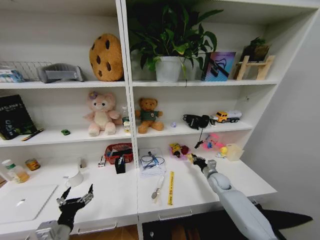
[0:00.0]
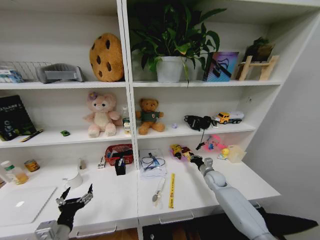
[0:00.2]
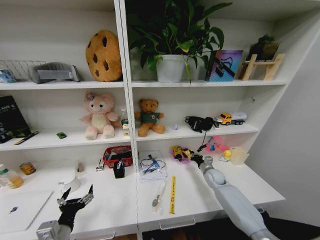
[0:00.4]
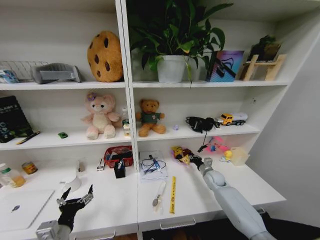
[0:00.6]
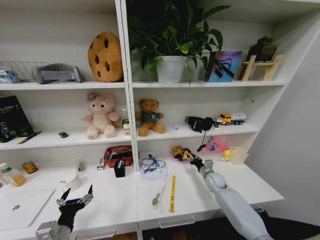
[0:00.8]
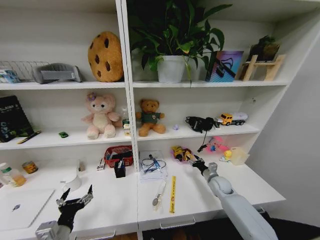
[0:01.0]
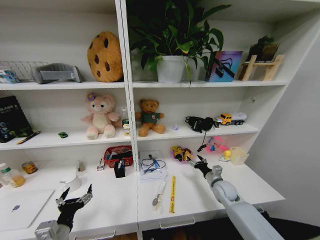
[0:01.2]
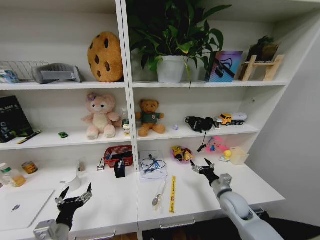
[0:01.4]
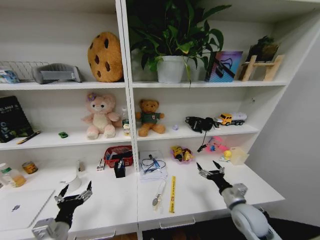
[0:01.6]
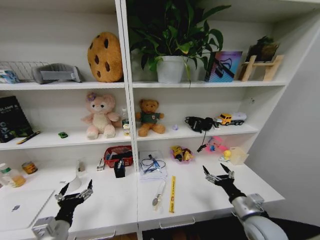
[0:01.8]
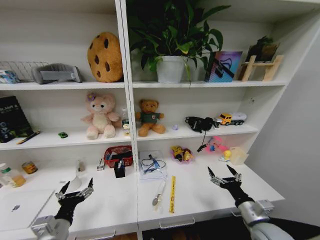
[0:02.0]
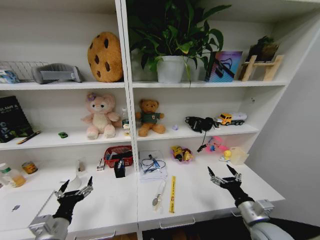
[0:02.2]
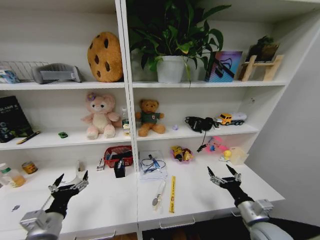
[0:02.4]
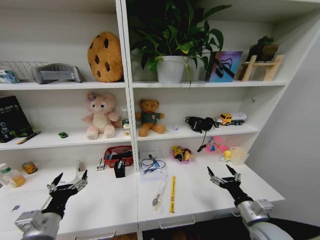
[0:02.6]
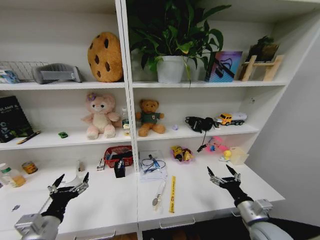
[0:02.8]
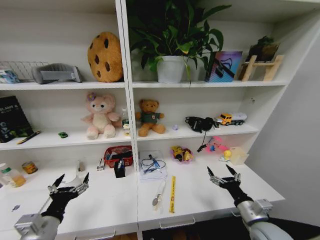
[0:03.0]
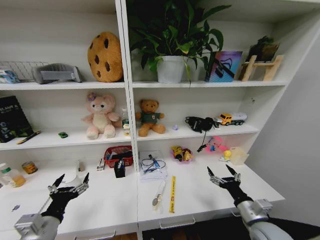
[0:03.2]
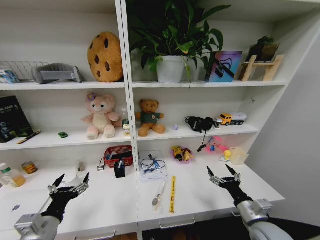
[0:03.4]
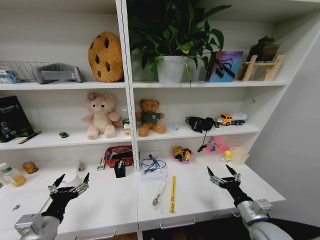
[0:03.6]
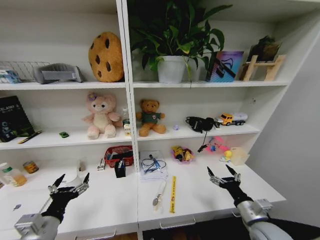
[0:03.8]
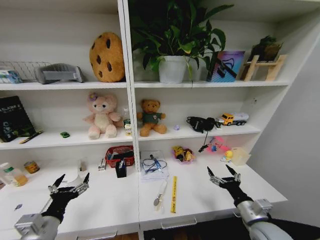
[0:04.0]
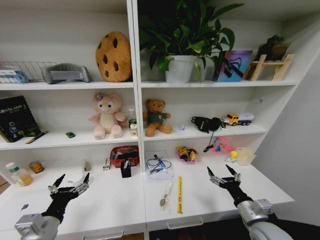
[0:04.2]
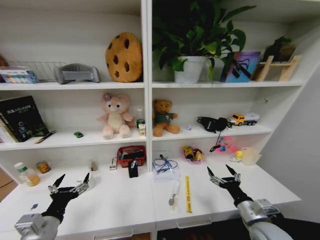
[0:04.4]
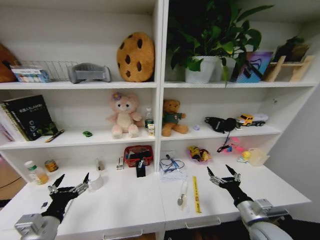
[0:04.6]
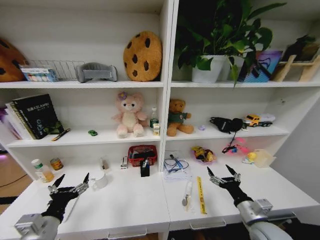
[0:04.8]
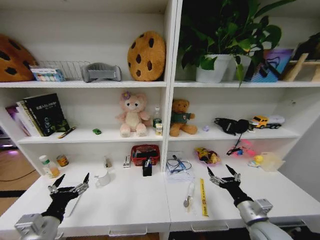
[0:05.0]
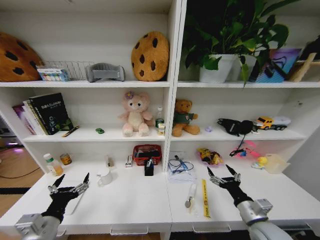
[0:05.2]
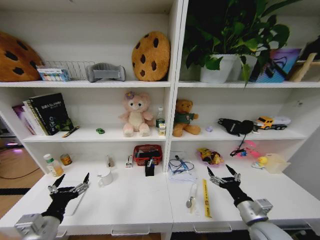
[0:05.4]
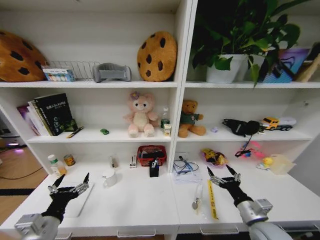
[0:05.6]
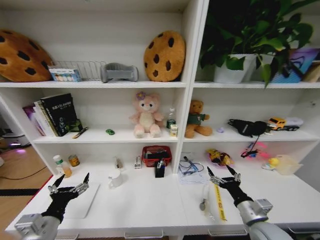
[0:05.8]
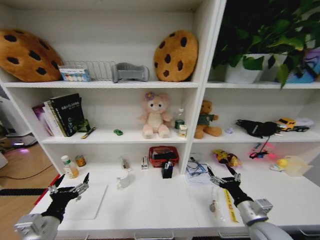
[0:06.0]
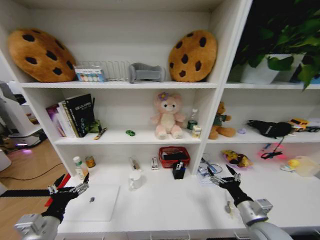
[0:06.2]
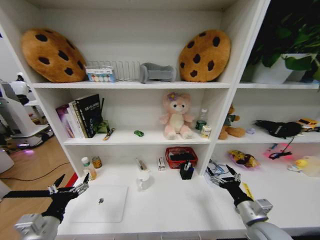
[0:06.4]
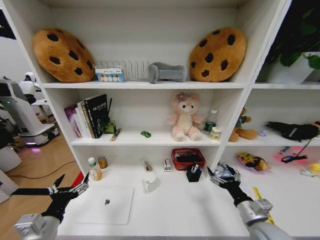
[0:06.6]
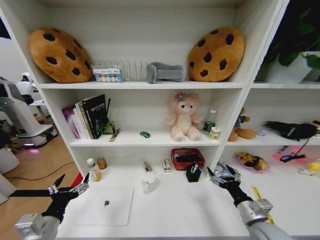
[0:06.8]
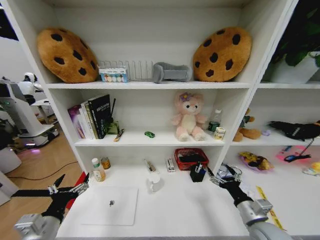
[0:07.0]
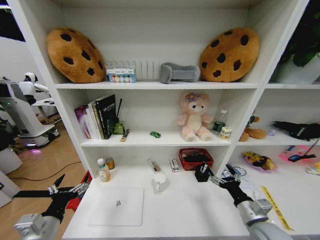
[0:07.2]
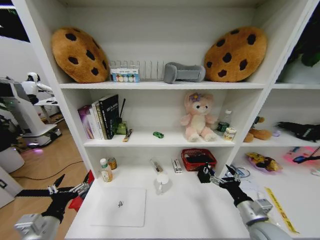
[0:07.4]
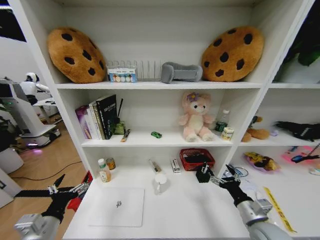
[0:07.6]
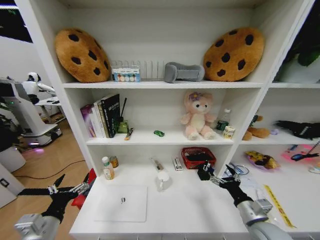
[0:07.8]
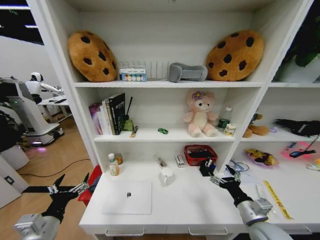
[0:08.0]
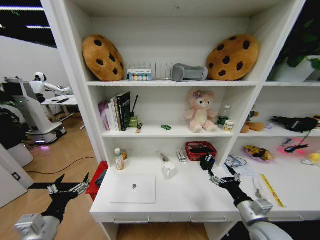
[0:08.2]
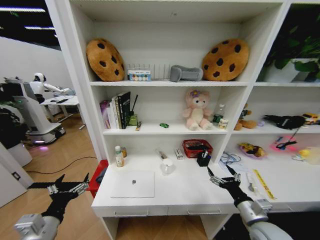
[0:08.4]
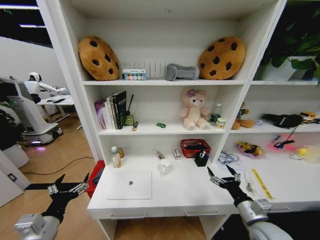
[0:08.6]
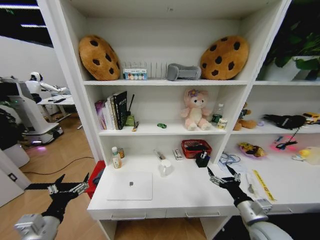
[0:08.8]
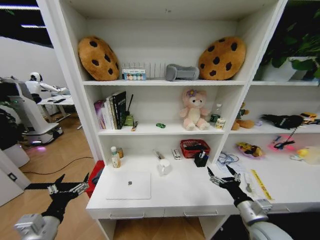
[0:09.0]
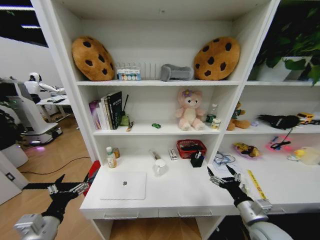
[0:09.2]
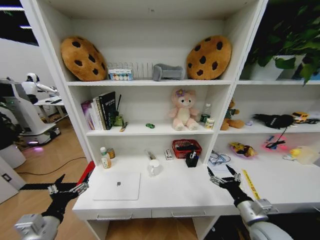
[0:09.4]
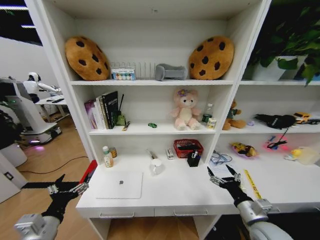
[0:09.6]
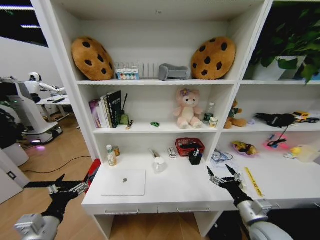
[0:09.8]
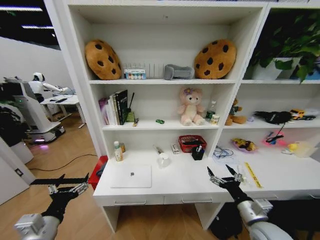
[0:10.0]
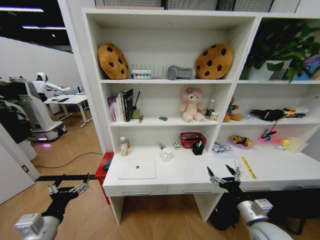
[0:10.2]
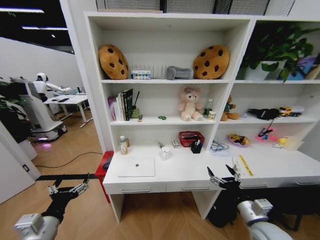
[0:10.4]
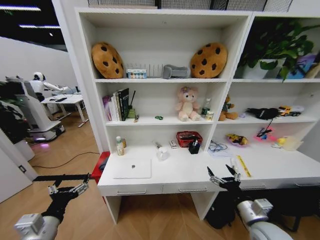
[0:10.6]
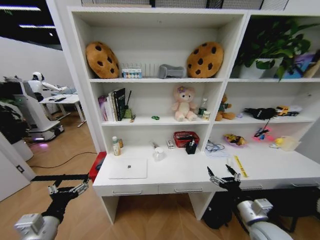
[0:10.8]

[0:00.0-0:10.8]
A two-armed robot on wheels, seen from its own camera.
Task of the whole recording: Organize the objects on the table.
0:00.0 to 0:01.6: The right gripper moves backward and upward, roughly 20 cm, and opens its fingers.
0:01.6 to 0:03.0: The right gripper goes about 5 cm backward.

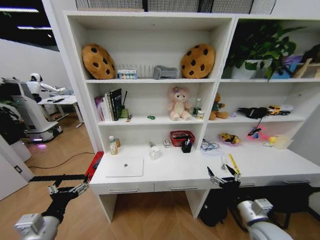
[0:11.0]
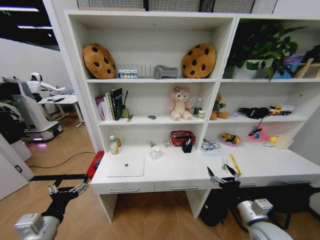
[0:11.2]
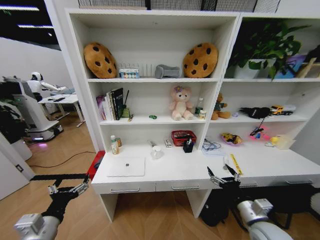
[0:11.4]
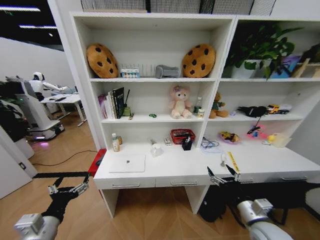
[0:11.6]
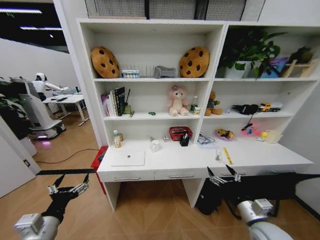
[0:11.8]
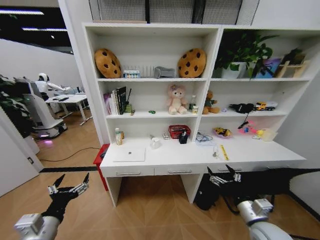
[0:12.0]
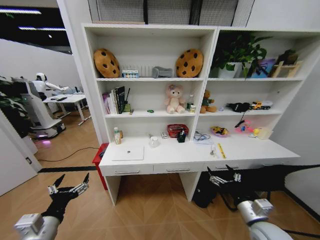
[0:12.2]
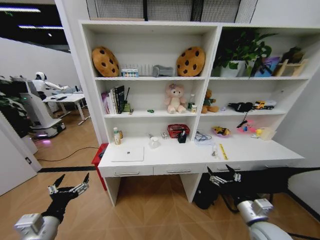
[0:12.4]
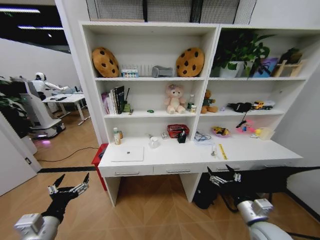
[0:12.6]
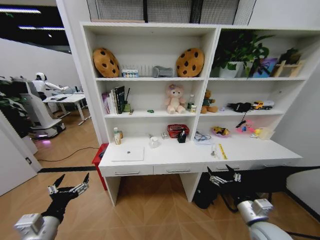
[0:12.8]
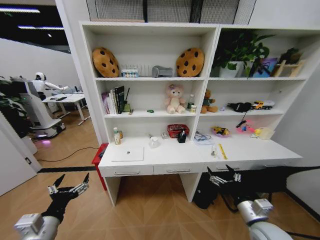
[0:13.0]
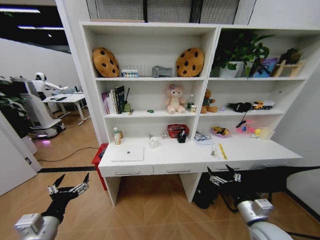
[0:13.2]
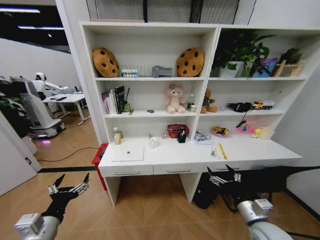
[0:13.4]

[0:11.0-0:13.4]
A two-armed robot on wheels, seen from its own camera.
Task of the whole recording: Organize the objects on the table.
0:12.2 to 0:13.4: Neither gripper changes place.
